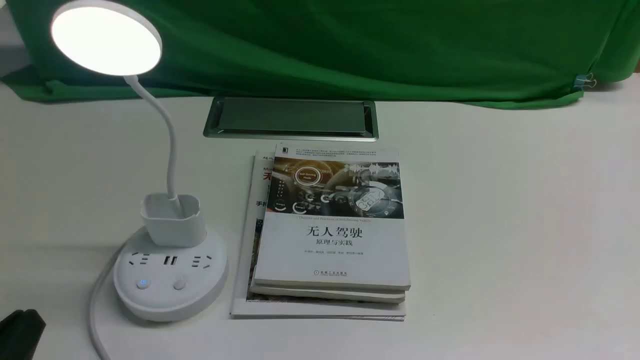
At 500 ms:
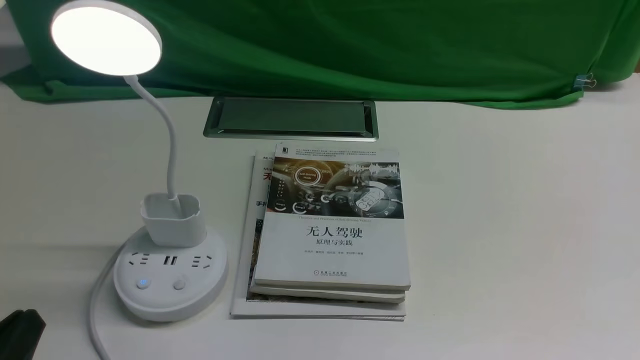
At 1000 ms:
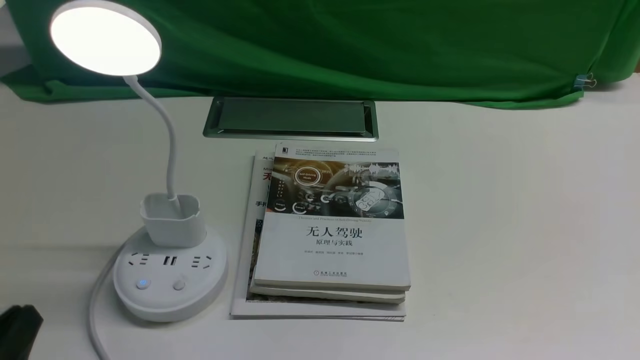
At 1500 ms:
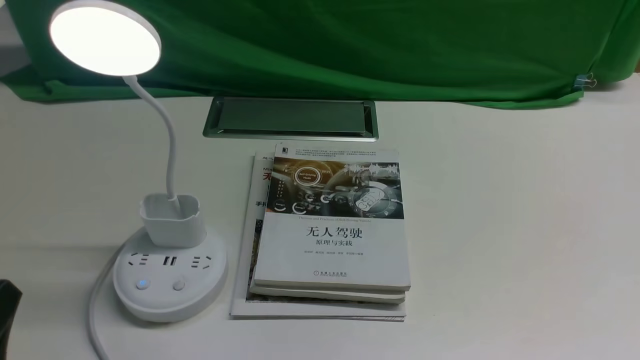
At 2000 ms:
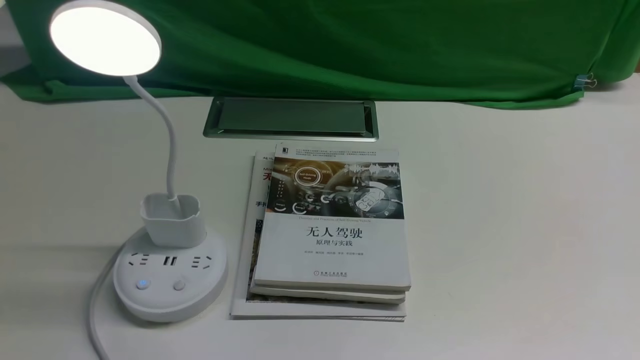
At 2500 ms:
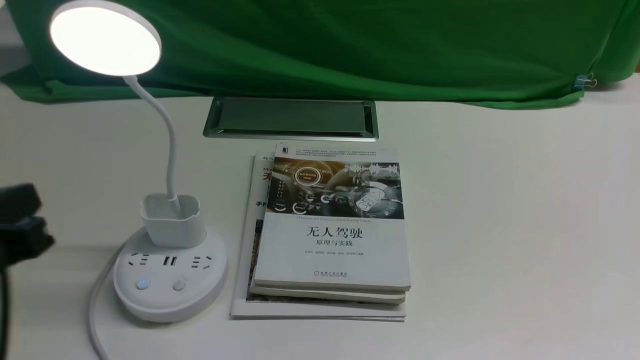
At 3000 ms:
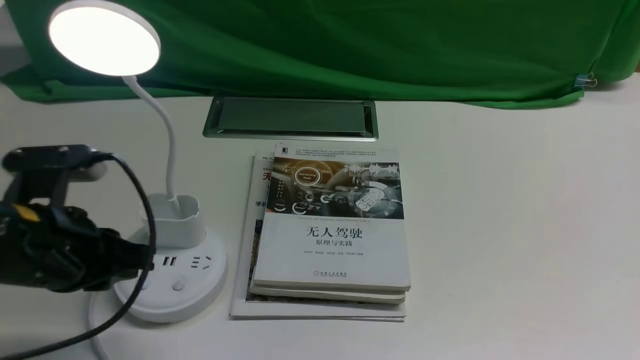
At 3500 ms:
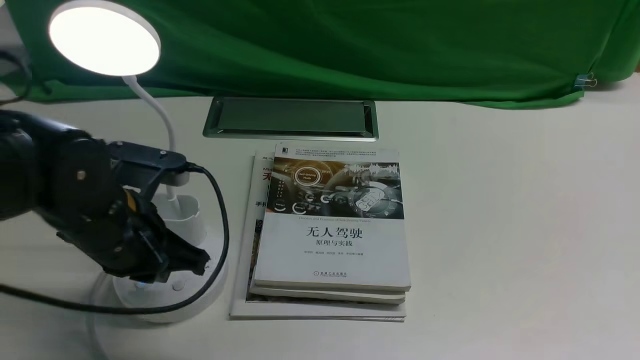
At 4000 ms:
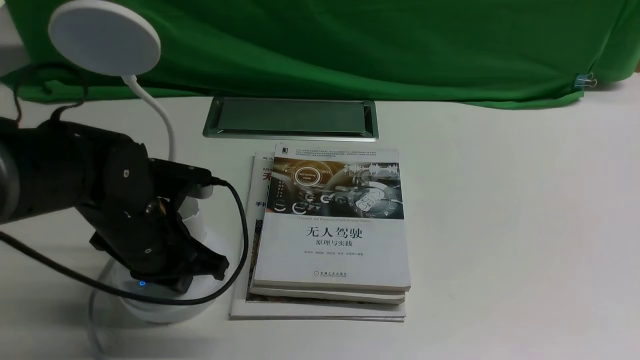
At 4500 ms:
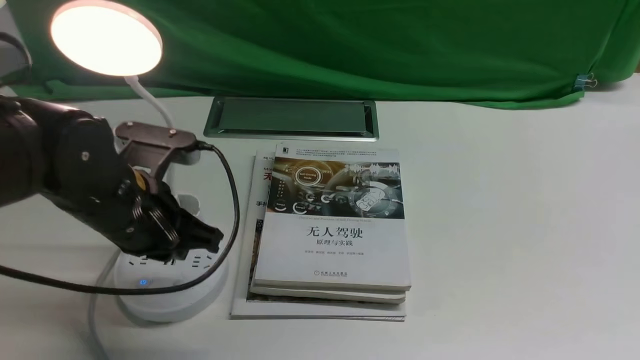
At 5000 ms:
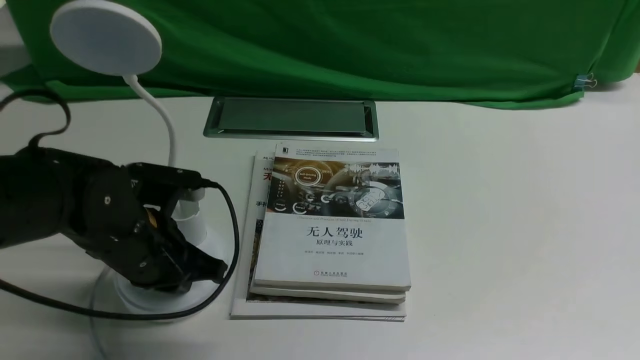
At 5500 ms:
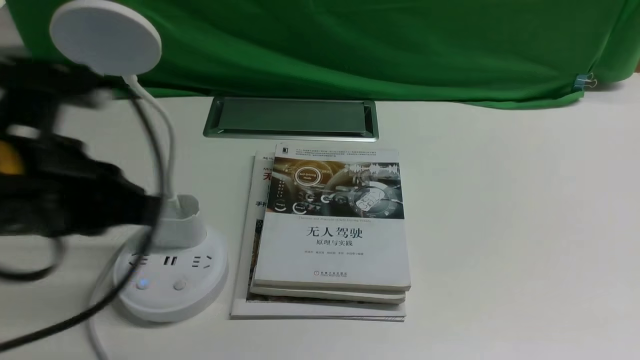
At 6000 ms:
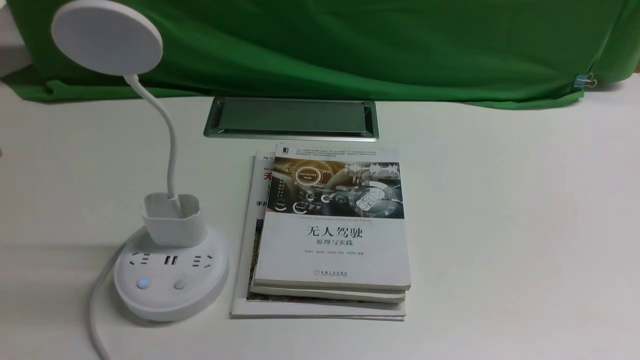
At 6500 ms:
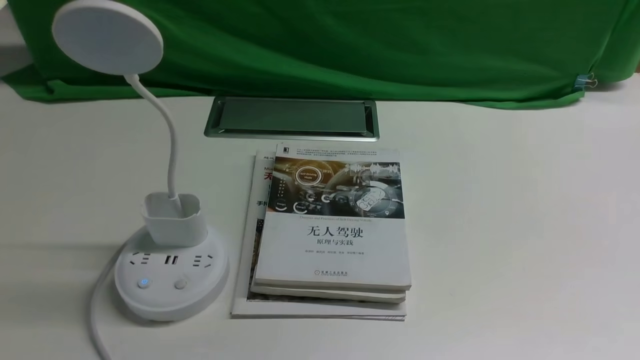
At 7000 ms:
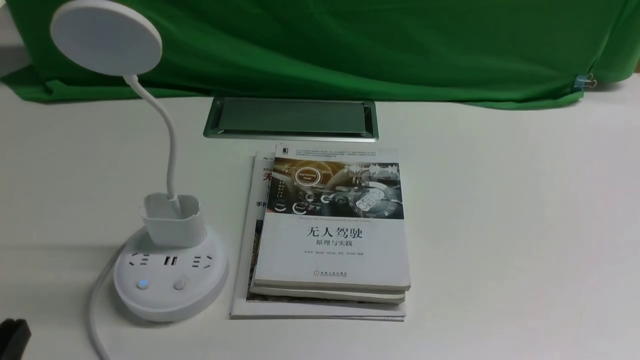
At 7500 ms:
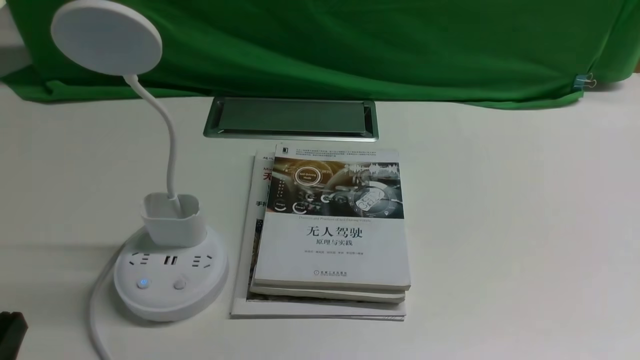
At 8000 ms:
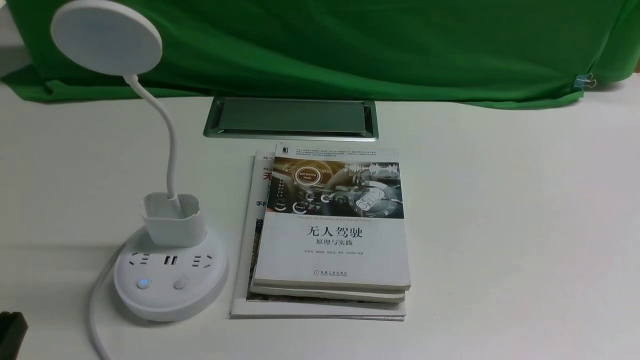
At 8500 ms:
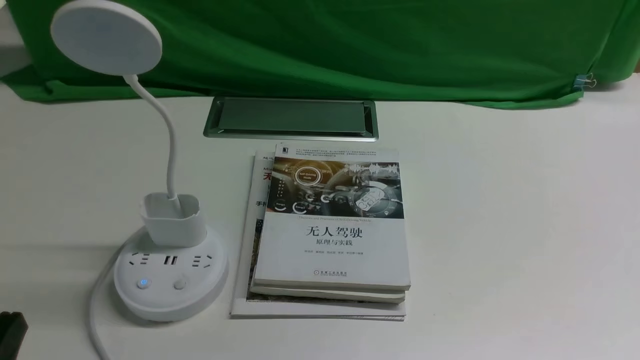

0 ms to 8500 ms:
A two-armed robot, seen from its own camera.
Task of the whole recording: turn off the desk lamp on the white desktop by hand.
Step, 0 ms to 5000 ms: use the left arm to press the button switch on the lamp holder.
2000 ms to 4000 ms: The left gripper goes some 20 cm forward, and closes its fingers.
4000 ms to 6500 ms: The left gripper is displaced backward and upward by roughly 25 cm.

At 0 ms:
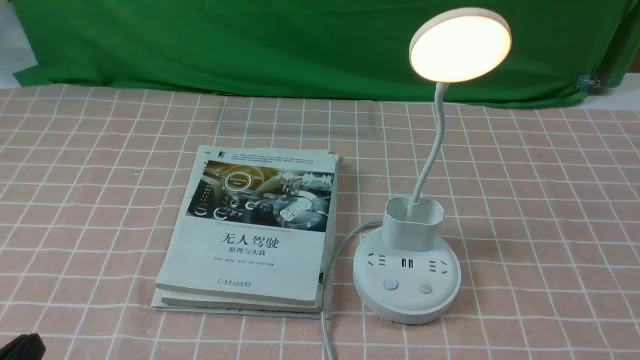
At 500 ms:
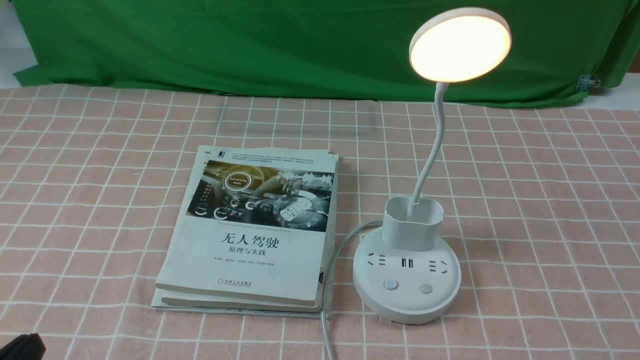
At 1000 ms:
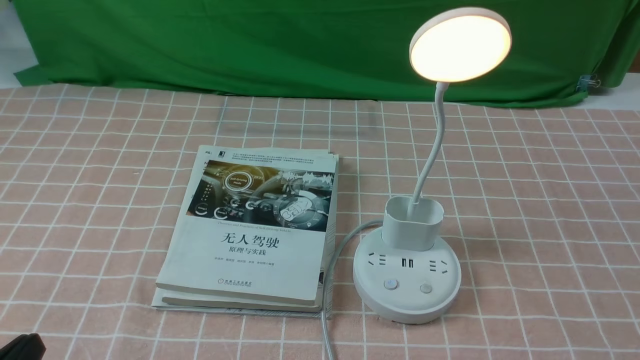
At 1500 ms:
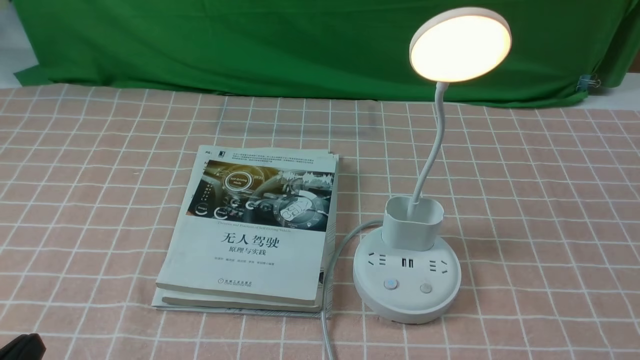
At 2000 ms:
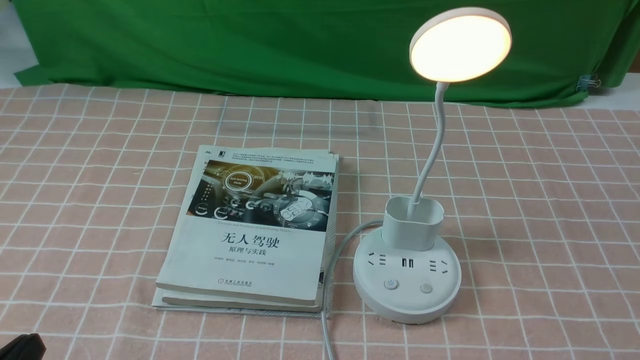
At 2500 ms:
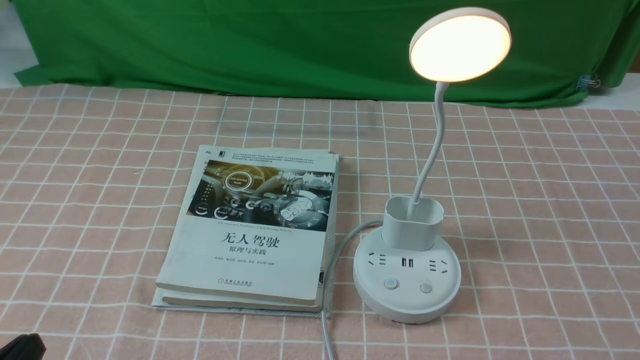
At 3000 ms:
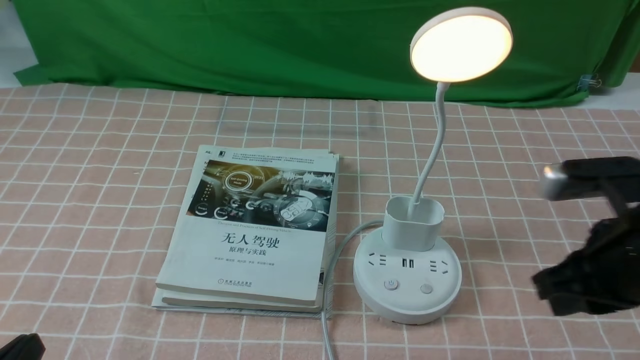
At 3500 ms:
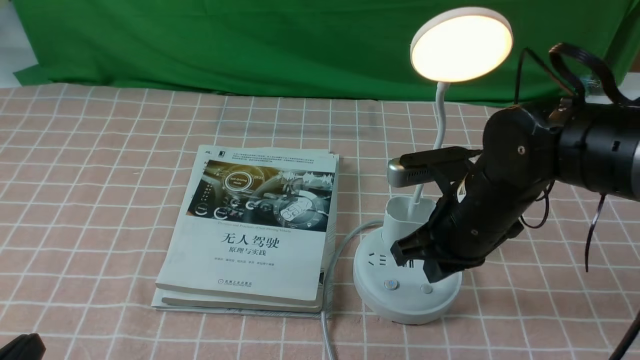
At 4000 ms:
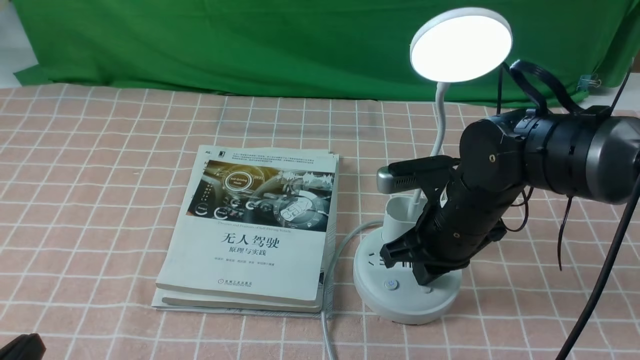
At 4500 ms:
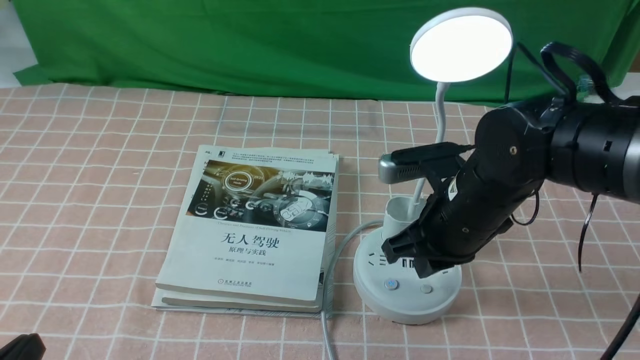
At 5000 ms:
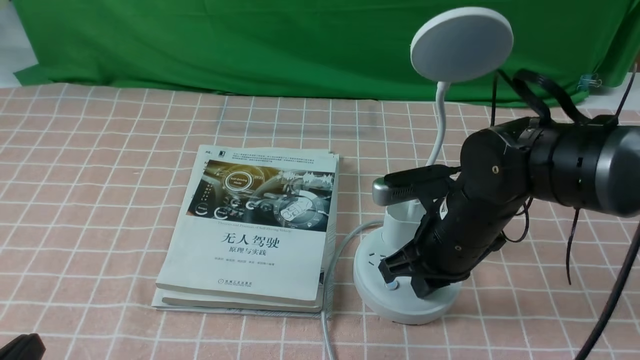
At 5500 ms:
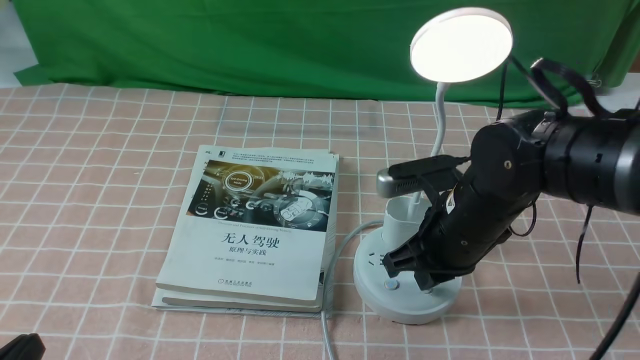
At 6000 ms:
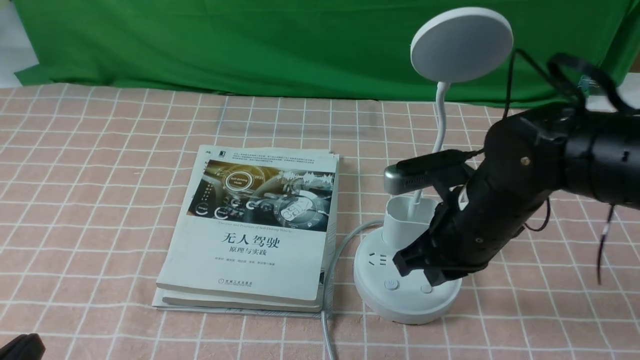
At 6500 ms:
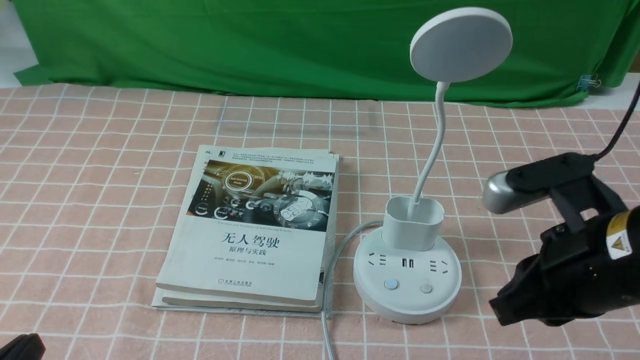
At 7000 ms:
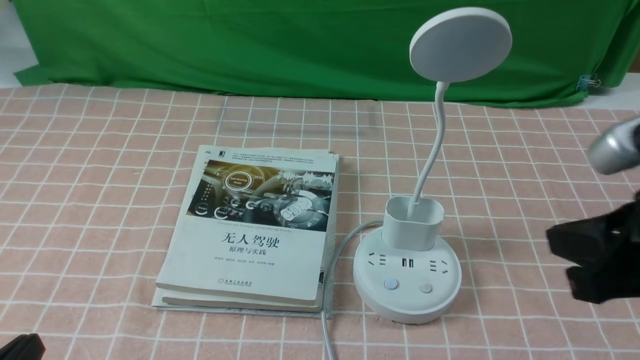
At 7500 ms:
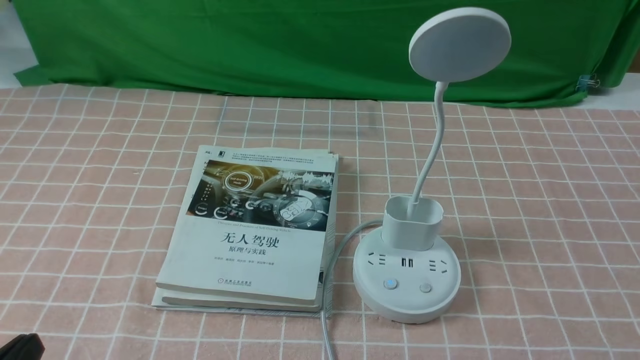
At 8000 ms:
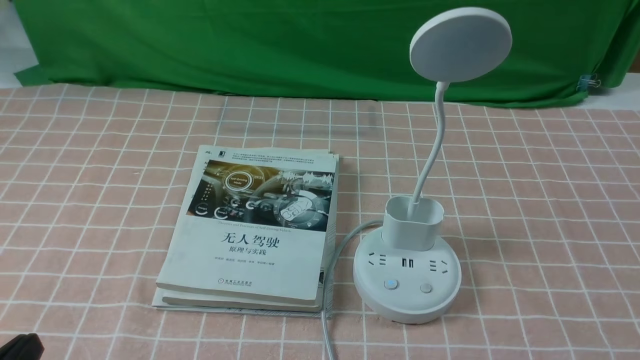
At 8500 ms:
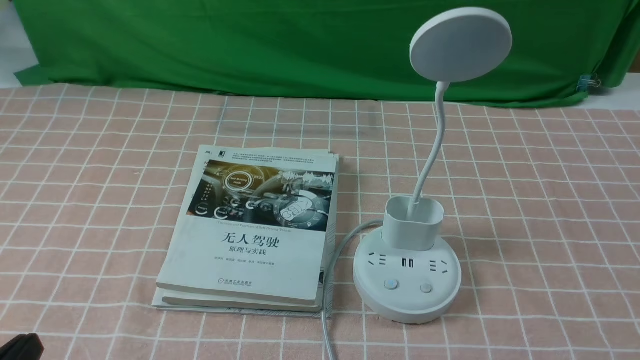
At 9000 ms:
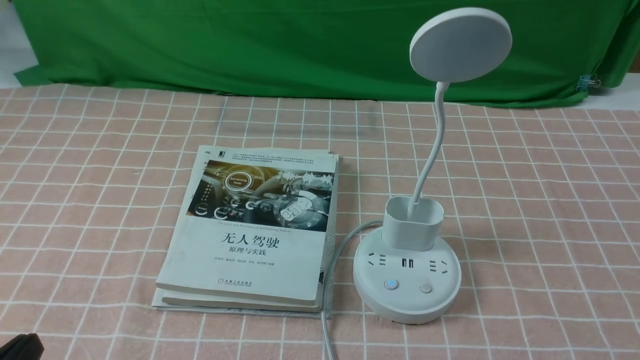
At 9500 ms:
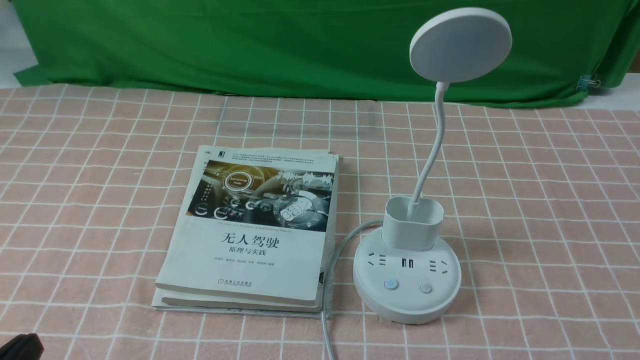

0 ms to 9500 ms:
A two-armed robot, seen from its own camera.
Task of the whole recording: turn off the table lamp on the pink coffee tablecloth by hand.
Step, 0 ms to 6000 ms: use the right arm to press the button switch on the lamp holder.
2000 ms to 4000 ms: The right gripper is displaced forward and to the left by about 30 cm, and closes its fingers.
4000 ms to 5500 ms: The grippers stay close to where they were, moving slightly.
5500 ms to 7500 ms: The right gripper travels backward and to the right by roughly 30 cm.
